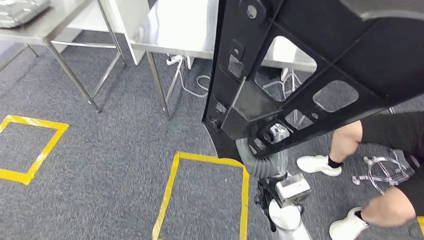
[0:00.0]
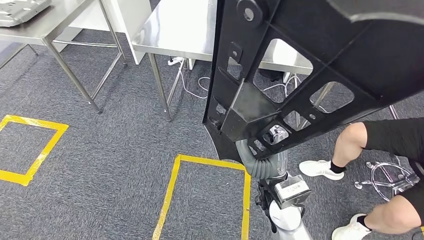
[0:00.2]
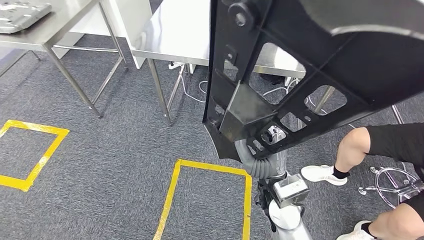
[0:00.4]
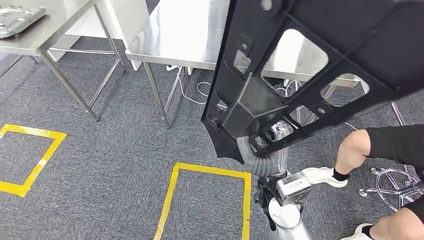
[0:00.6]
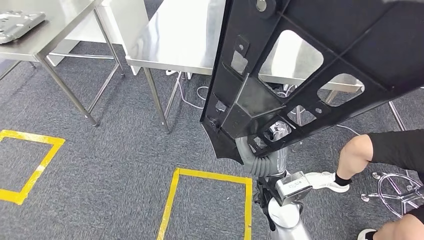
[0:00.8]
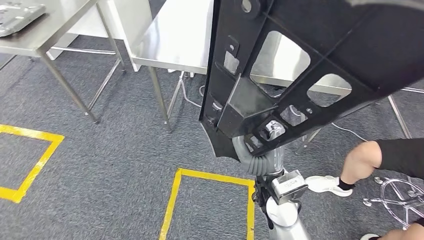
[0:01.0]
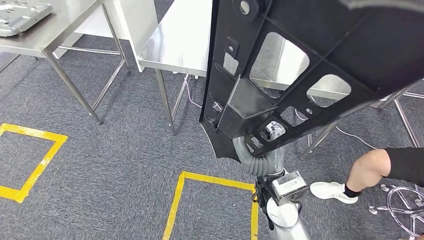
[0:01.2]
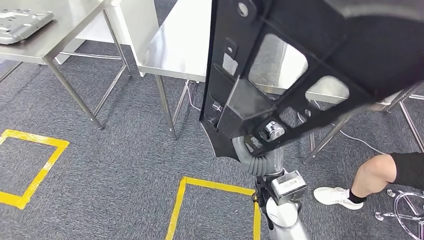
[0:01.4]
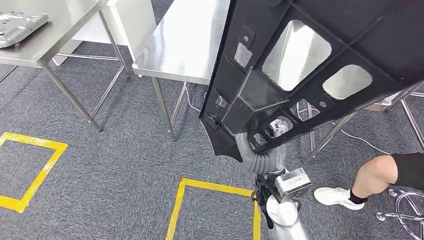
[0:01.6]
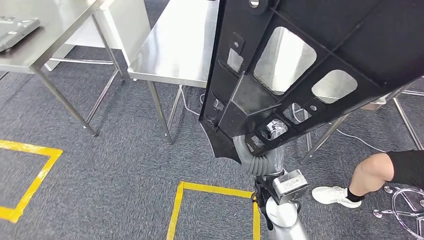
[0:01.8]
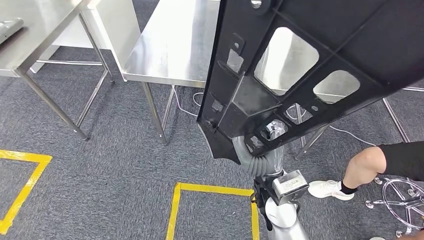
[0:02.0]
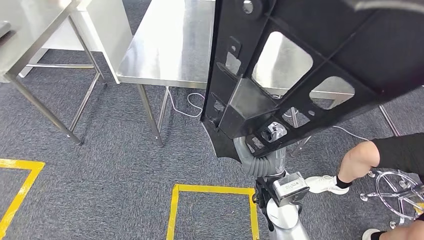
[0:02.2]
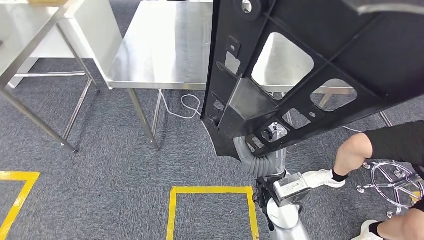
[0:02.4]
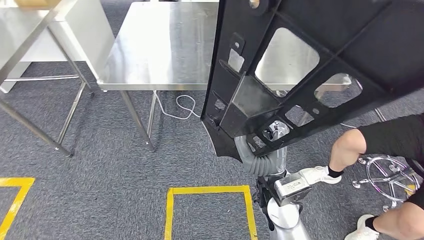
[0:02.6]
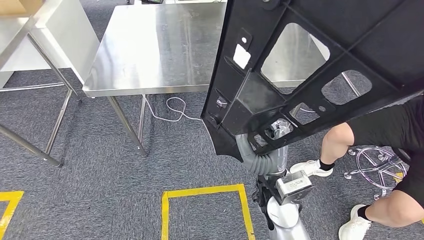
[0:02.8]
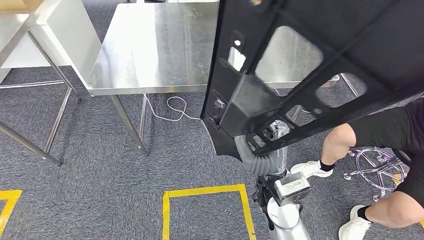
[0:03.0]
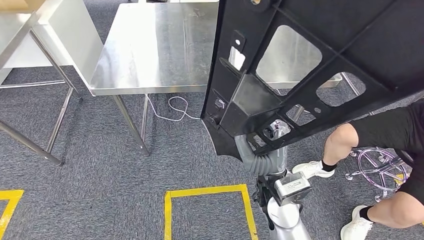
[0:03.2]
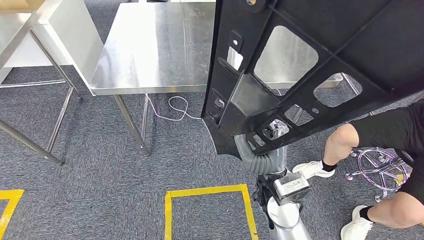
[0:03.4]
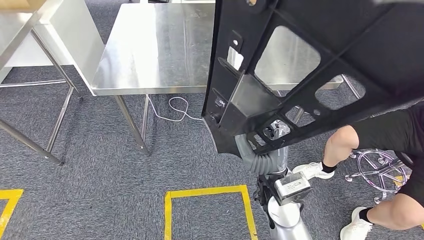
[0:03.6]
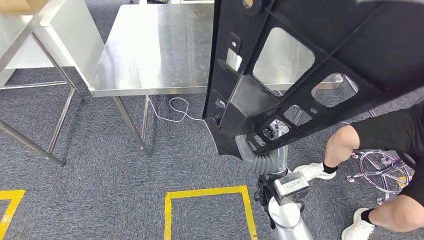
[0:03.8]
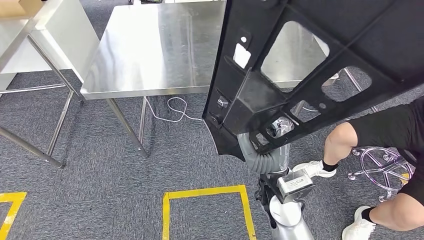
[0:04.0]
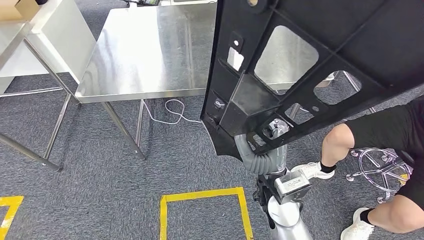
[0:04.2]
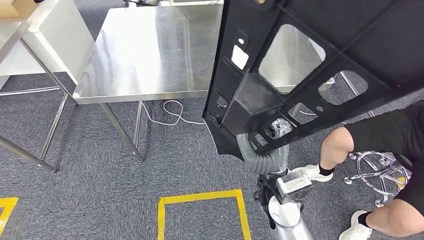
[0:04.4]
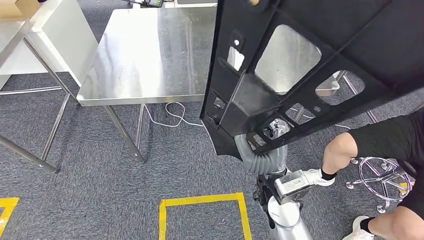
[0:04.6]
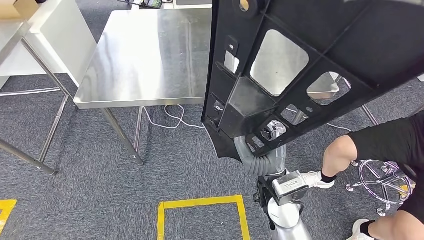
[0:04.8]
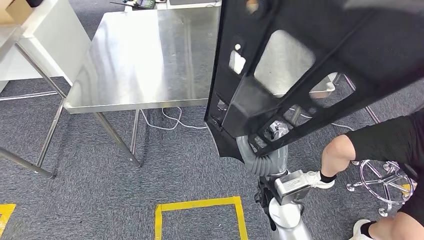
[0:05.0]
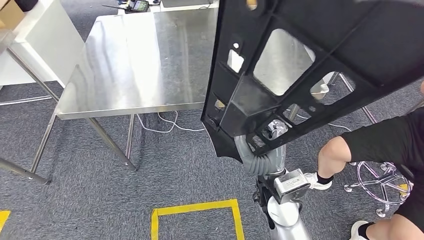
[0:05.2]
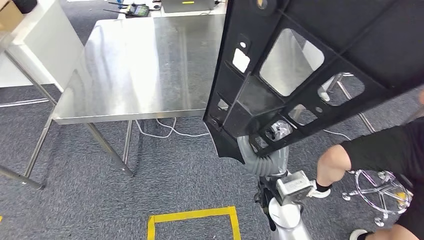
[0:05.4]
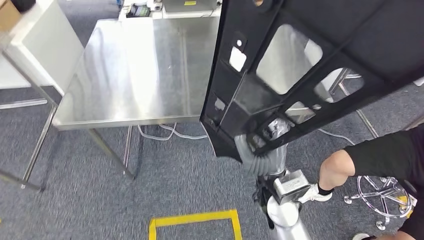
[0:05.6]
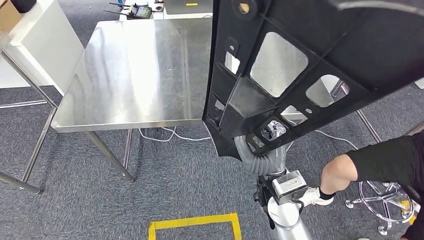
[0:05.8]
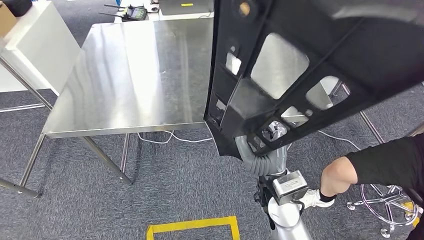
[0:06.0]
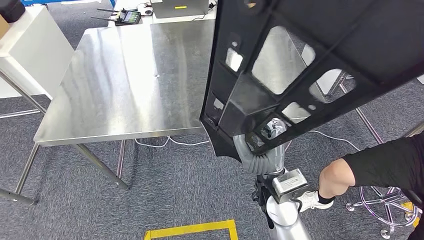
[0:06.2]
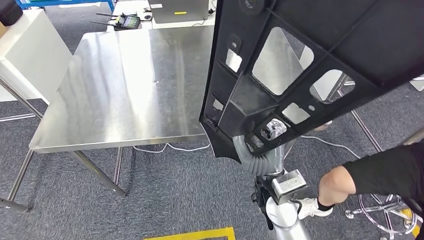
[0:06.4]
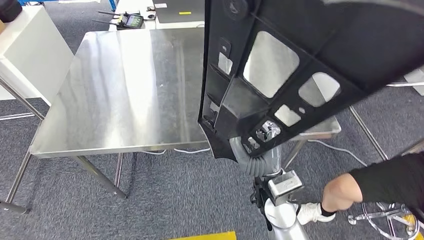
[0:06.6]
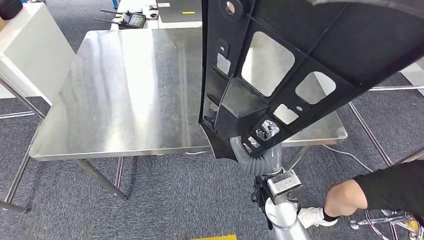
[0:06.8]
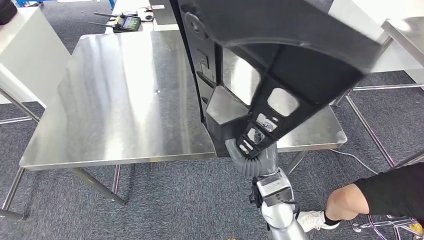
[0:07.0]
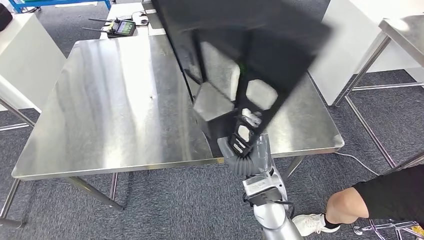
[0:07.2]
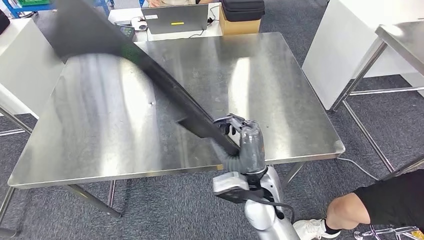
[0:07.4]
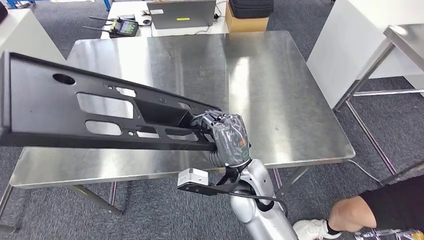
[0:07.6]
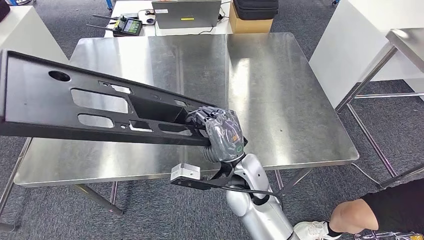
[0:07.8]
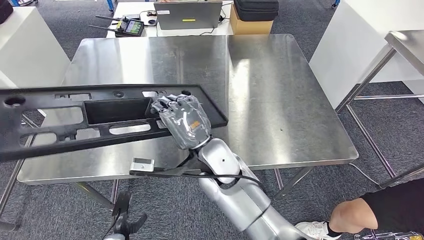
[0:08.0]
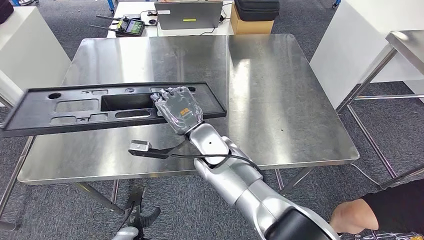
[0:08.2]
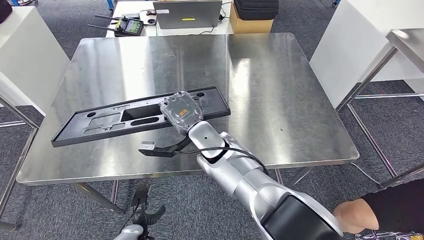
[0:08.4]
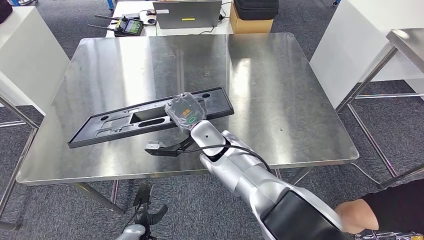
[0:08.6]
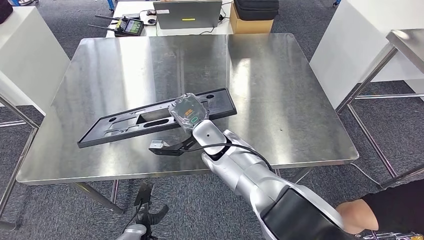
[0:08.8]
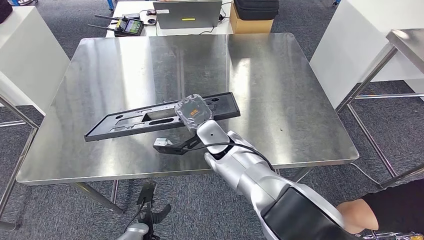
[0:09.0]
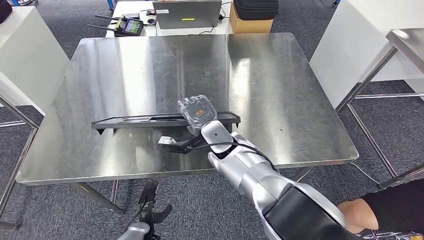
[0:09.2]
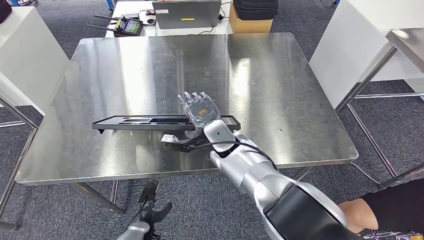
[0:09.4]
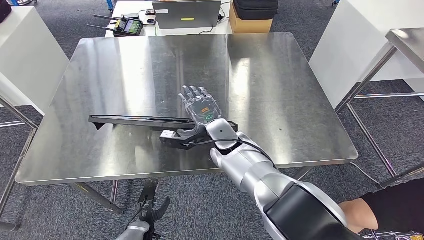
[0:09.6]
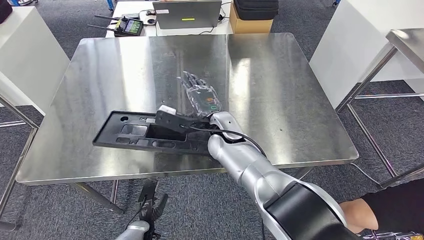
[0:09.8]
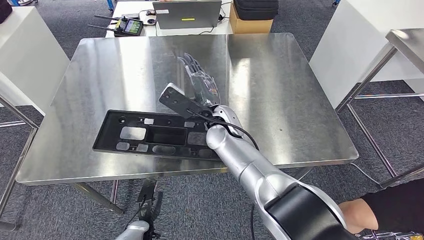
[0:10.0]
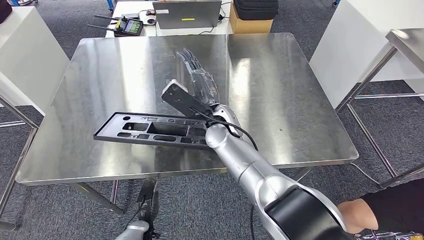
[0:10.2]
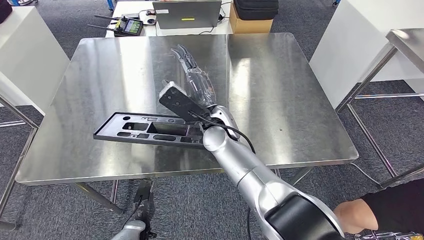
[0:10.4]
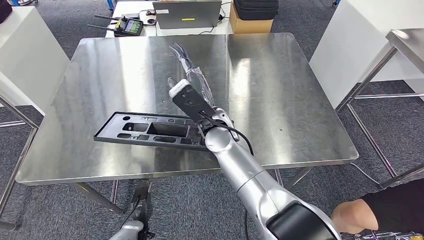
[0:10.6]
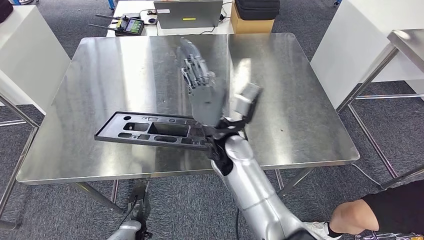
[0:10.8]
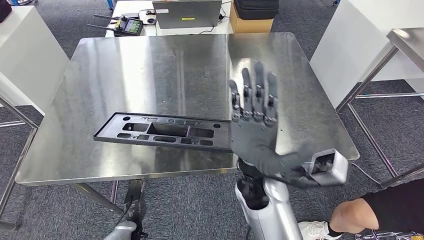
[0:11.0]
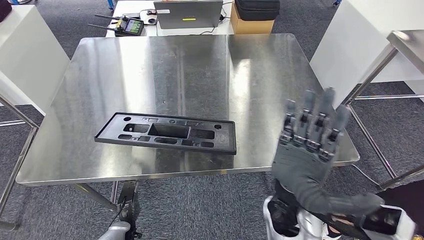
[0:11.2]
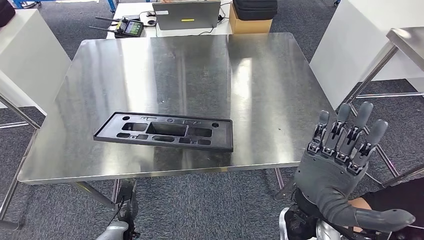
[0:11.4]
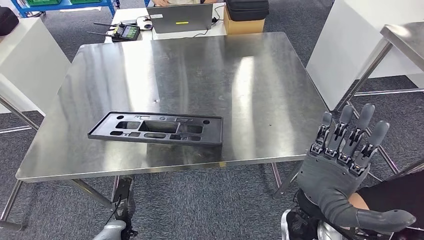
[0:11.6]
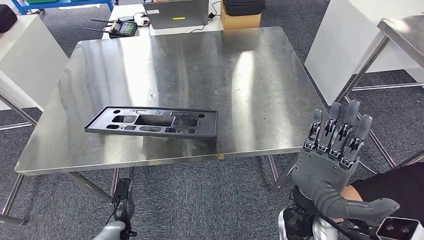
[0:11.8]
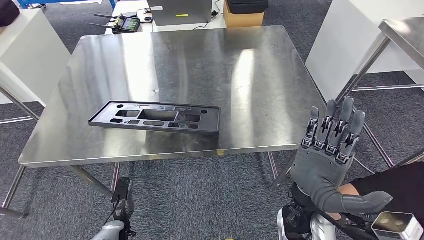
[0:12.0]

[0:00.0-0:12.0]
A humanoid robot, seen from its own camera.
Step, 0:00.0 to 0:06.4: Move the large material to the workbench.

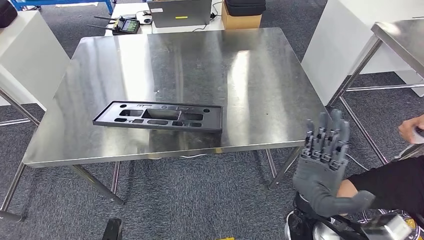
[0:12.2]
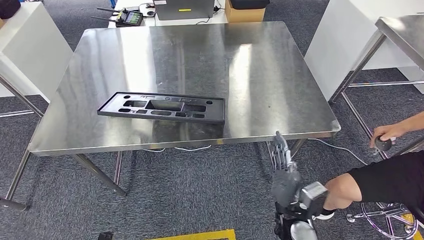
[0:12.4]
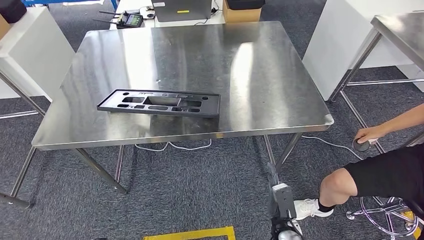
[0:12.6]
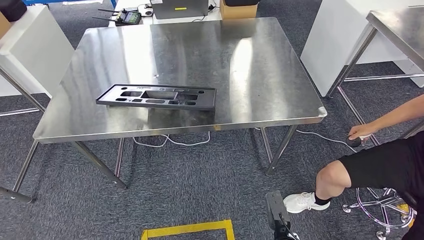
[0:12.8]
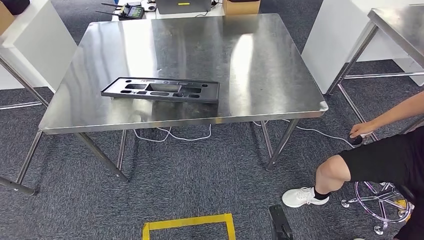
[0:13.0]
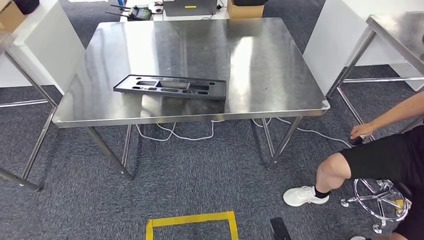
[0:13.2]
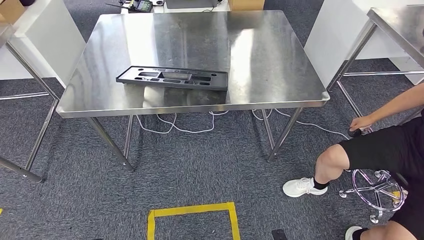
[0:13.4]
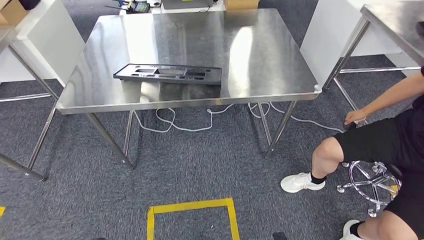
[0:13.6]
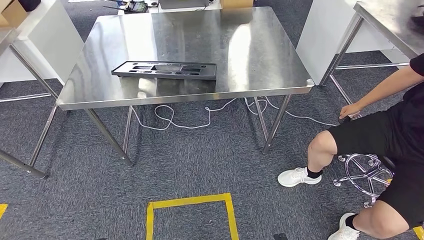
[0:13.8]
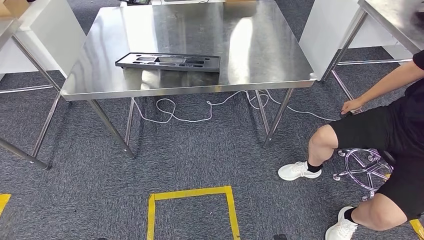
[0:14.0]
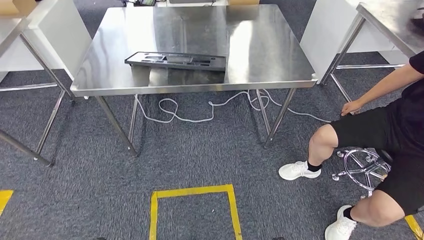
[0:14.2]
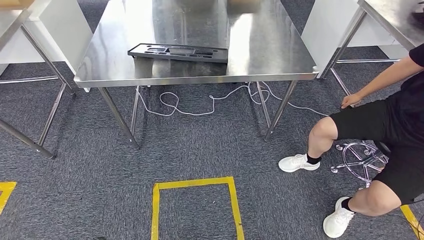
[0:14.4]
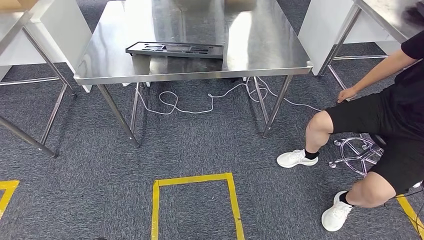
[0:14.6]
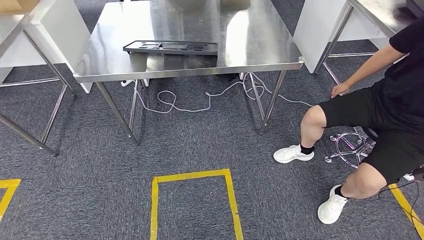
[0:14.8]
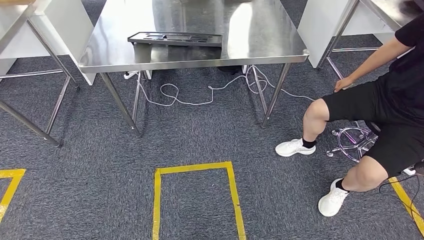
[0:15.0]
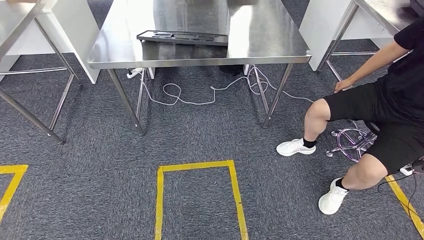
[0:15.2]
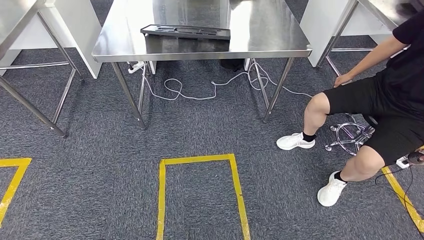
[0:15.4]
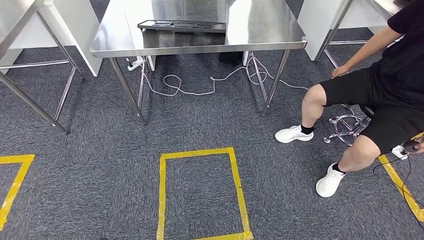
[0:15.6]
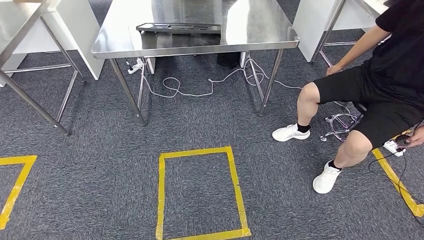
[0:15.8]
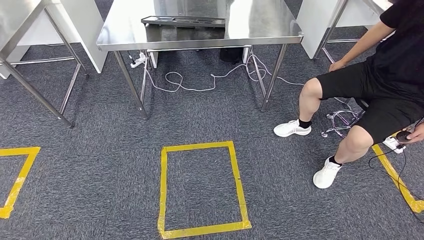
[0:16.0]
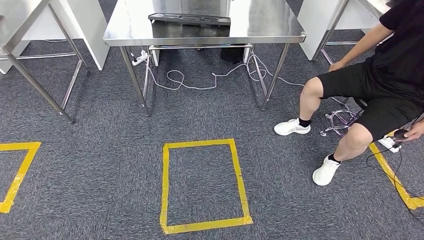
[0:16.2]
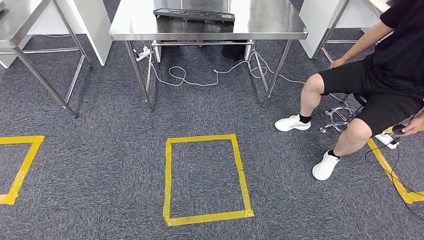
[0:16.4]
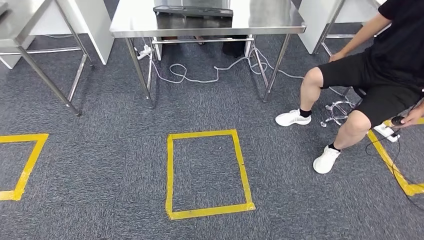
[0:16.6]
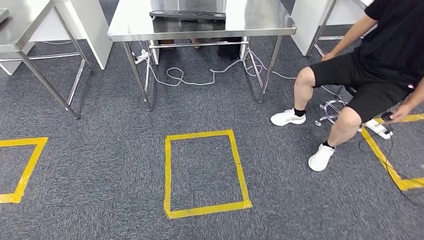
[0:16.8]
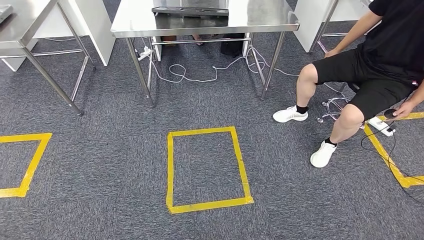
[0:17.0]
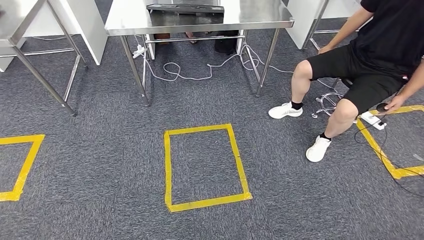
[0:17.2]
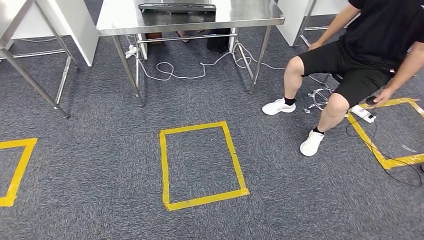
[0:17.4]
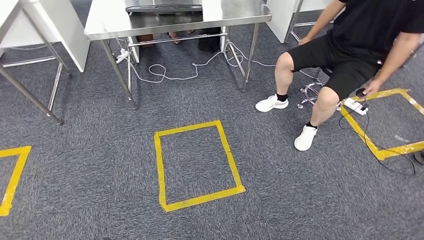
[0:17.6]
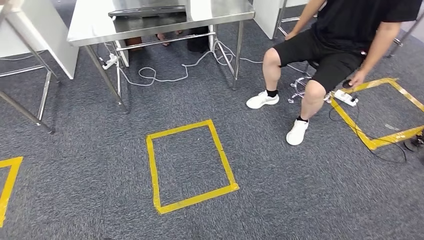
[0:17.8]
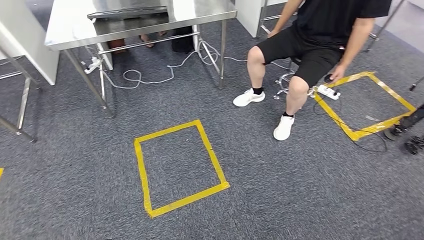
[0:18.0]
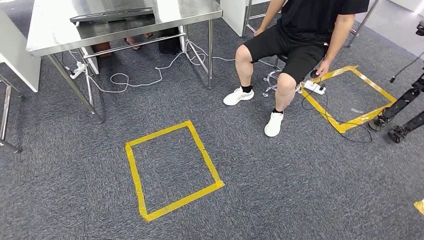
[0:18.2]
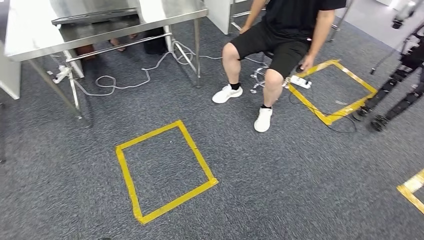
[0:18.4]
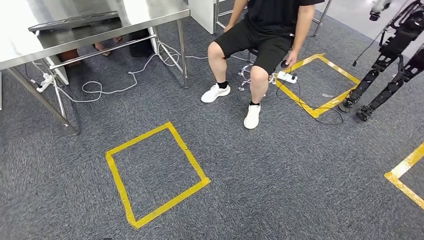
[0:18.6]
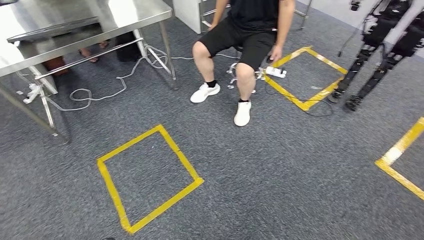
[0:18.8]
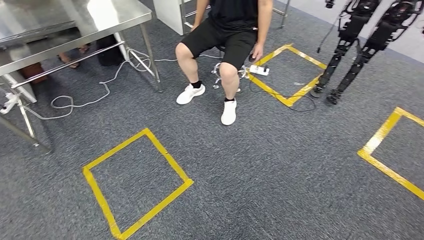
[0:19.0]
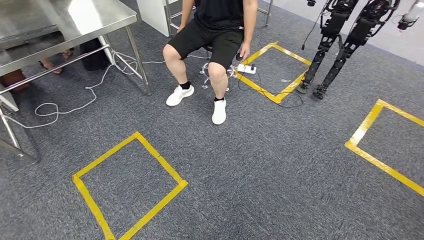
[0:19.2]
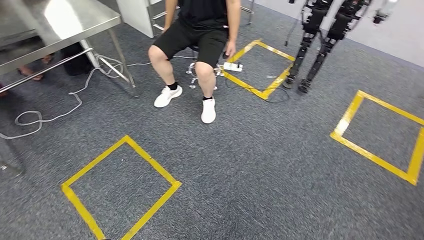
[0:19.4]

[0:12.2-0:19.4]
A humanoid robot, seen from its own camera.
Step, 0:12.2 to 0:15.6: Insert the large material into the corresponding slot on the workbench.
